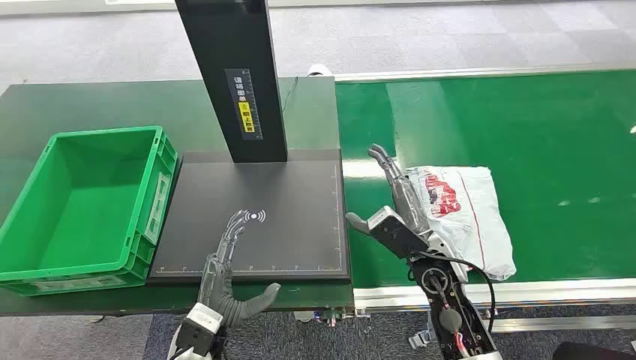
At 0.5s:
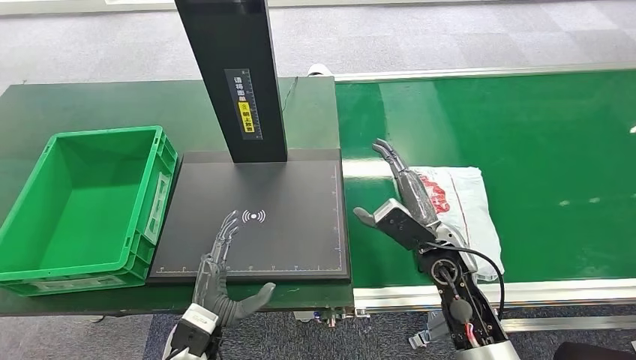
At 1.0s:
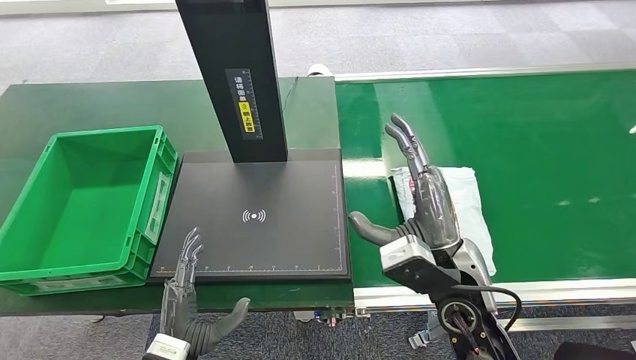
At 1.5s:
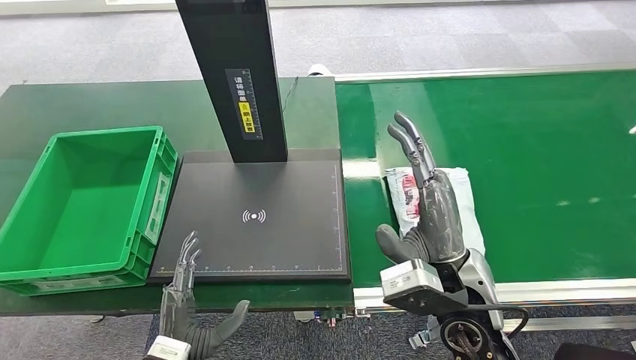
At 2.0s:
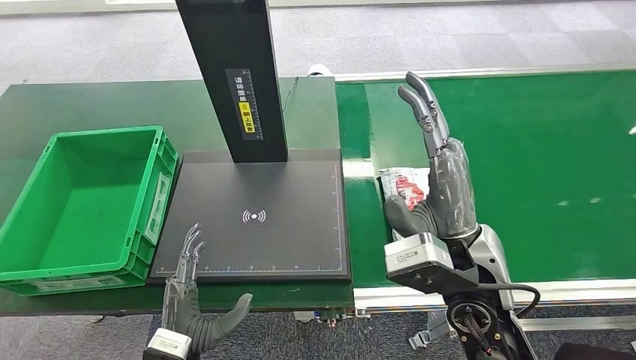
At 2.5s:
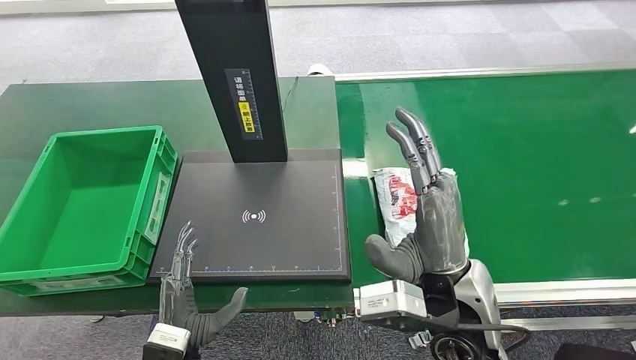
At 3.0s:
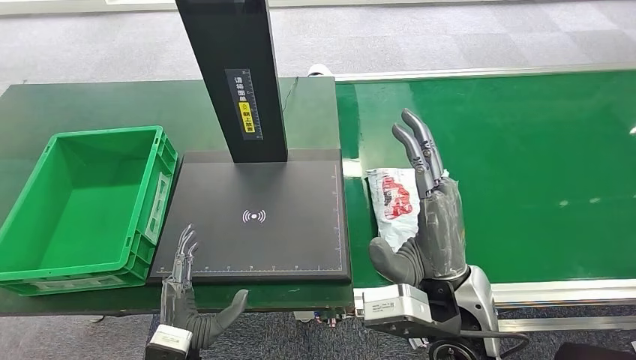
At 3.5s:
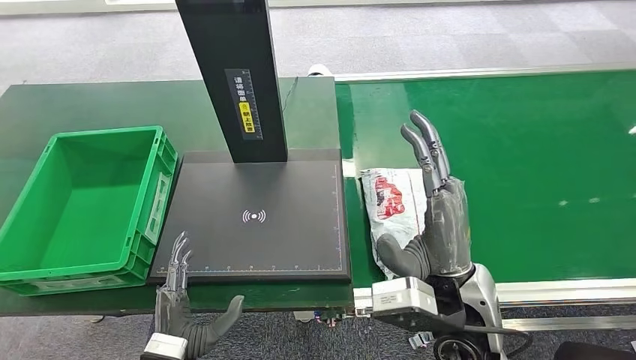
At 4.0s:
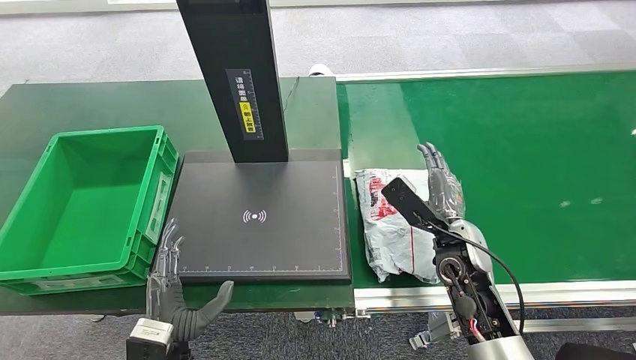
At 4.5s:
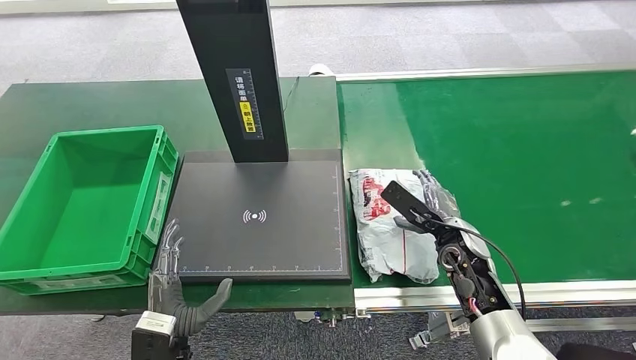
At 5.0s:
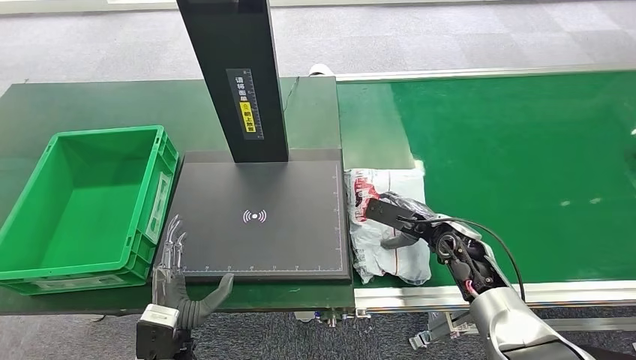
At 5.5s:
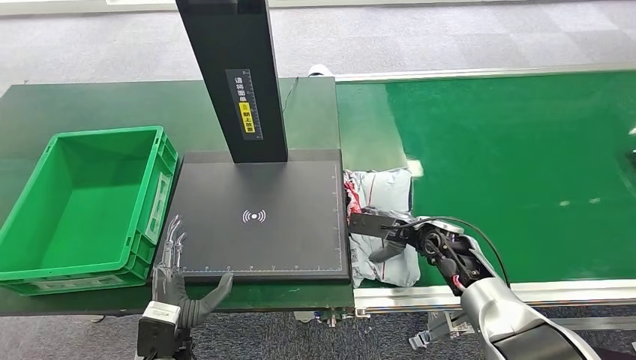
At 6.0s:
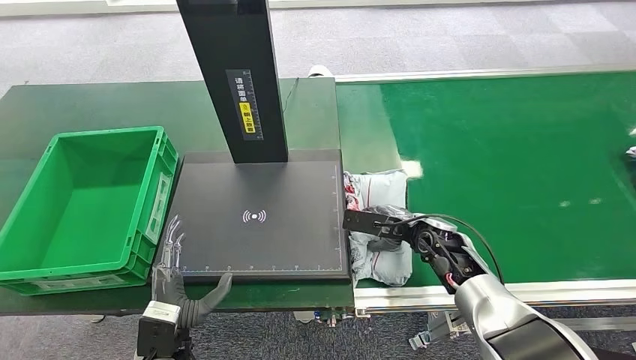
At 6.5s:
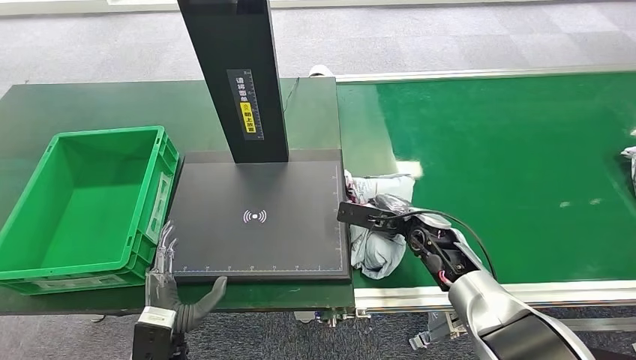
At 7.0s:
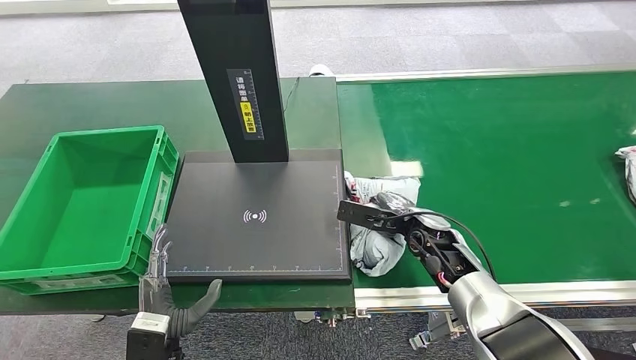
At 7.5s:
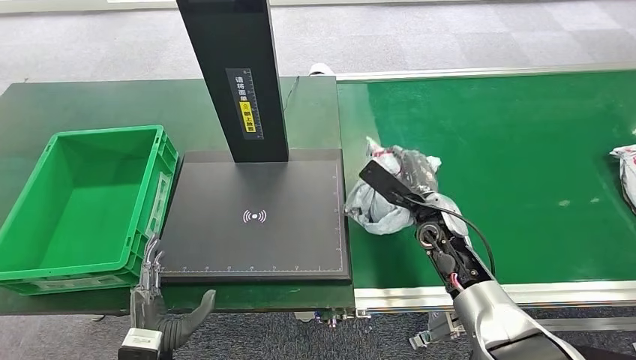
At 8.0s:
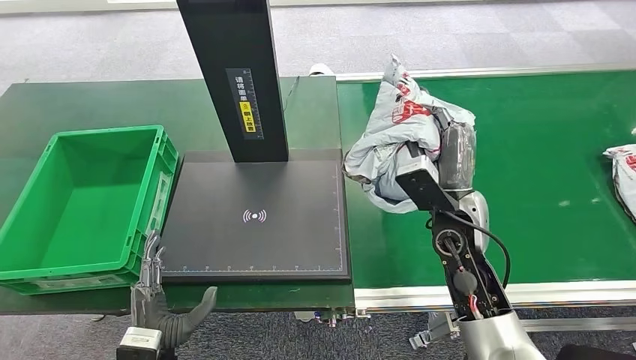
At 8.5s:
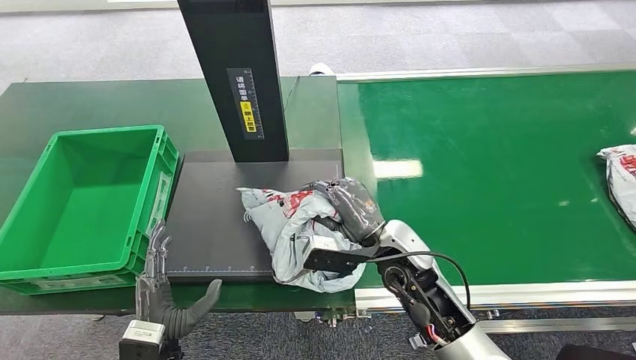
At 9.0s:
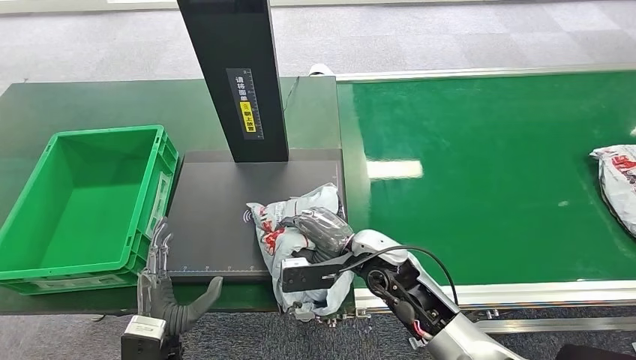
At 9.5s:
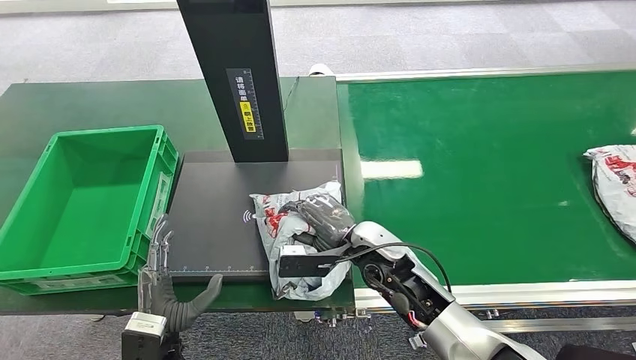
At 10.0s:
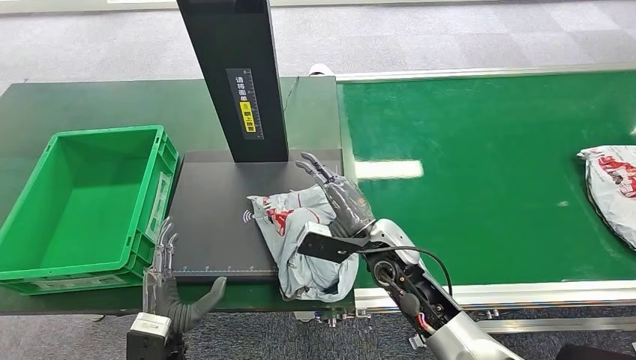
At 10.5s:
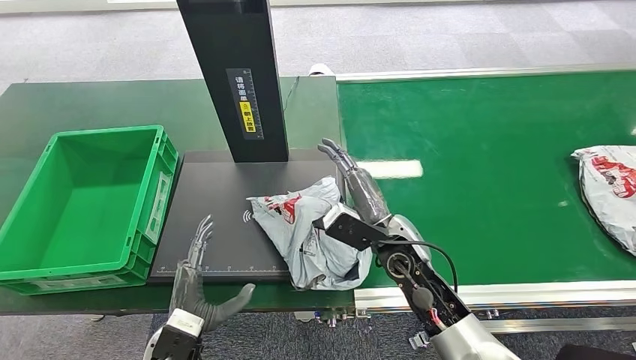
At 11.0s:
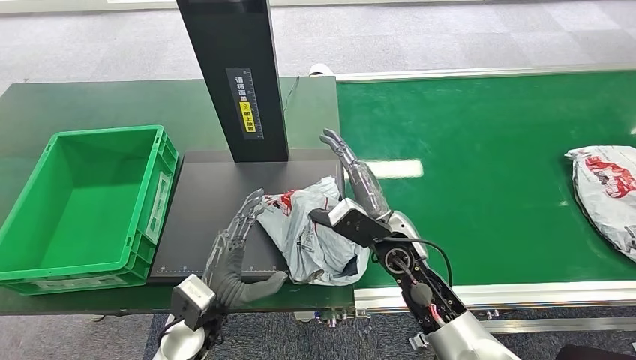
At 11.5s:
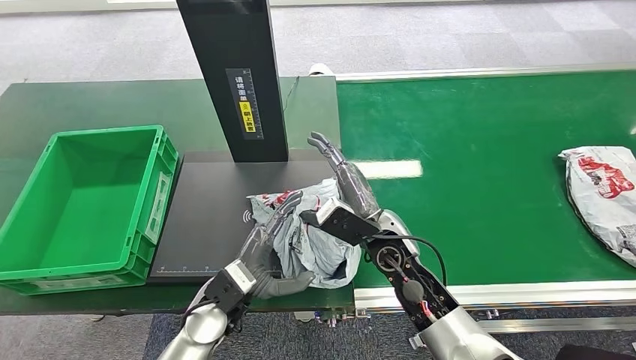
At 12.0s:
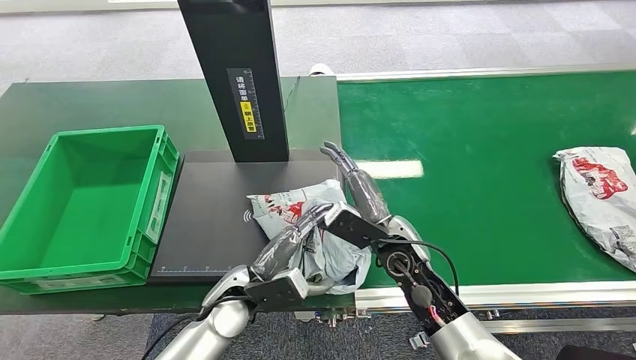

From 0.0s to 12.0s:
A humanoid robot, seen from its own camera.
Step, from 0.0s to 8.0s: Pick up the package from the conveyor belt.
Step, from 9.0s to 10.5s: Place the package onto the inbound machine.
From 2.0s to 4.0s: The right hand is displaced downward, to the right and forward by about 20 cm.
From 4.0s to 6.0s: The right hand moves roughly 5 cm.
From 6.0s to 8.0s: The right hand shifts some 10 cm upward.
From 10.0s to 12.0s: The left hand heads forward and to the right, covering some 15 cm.

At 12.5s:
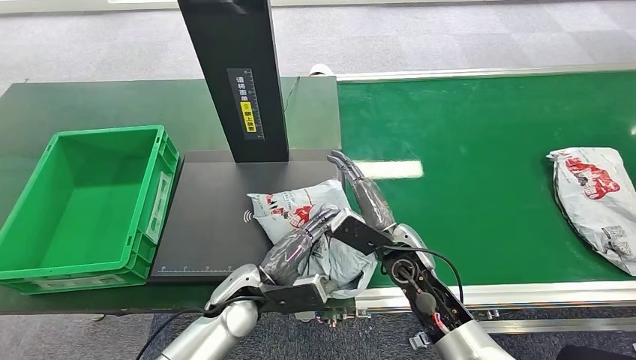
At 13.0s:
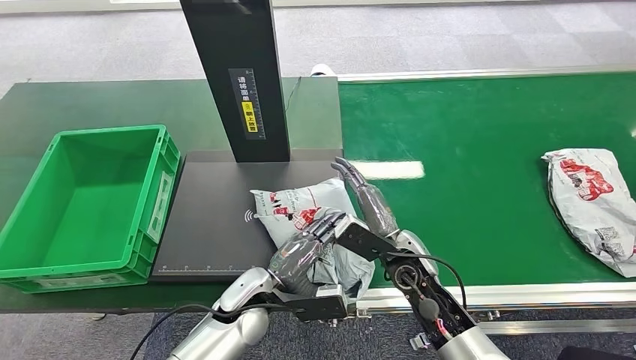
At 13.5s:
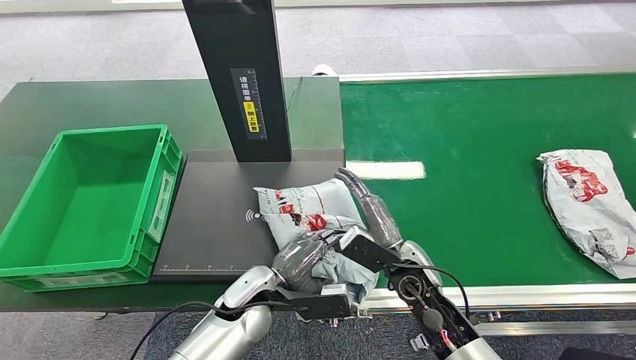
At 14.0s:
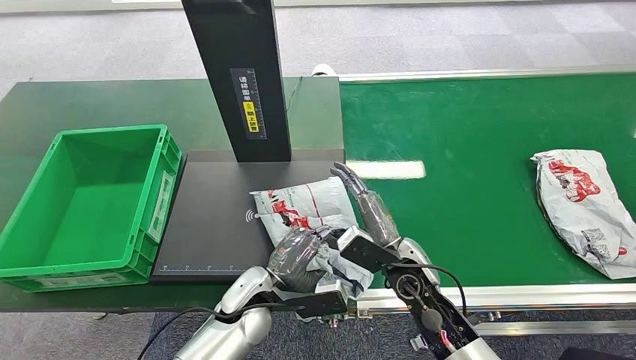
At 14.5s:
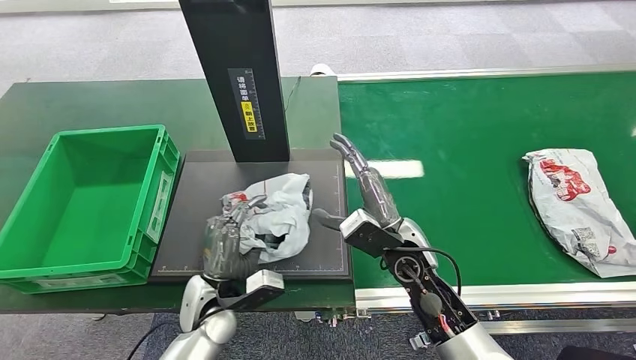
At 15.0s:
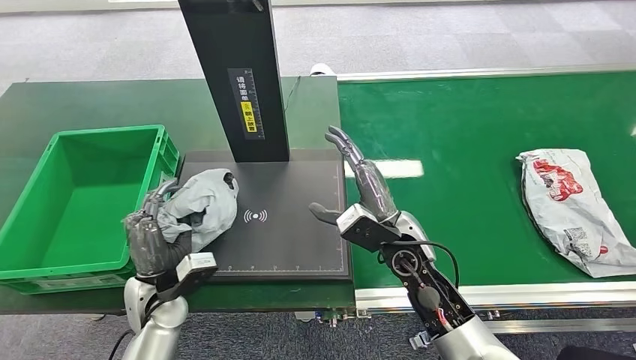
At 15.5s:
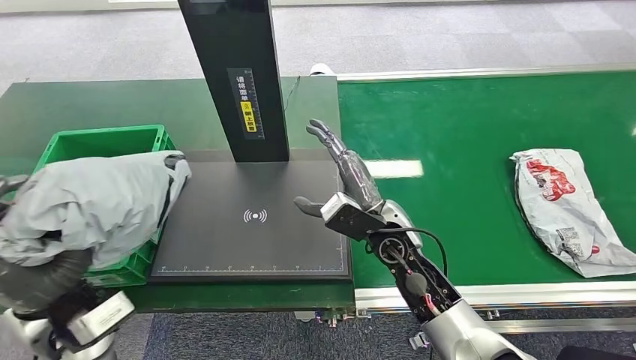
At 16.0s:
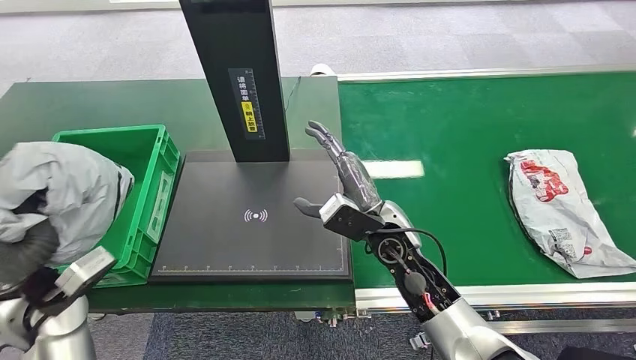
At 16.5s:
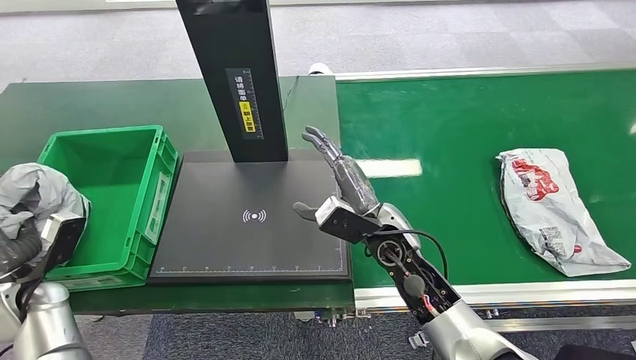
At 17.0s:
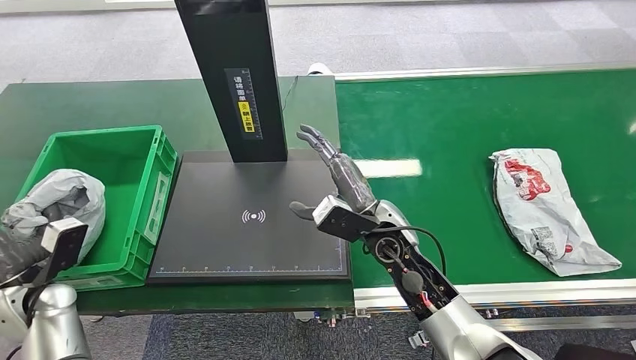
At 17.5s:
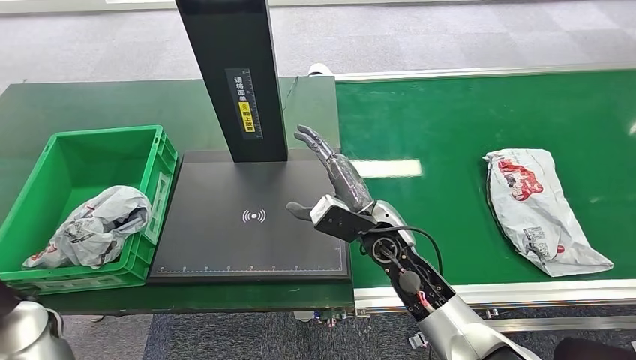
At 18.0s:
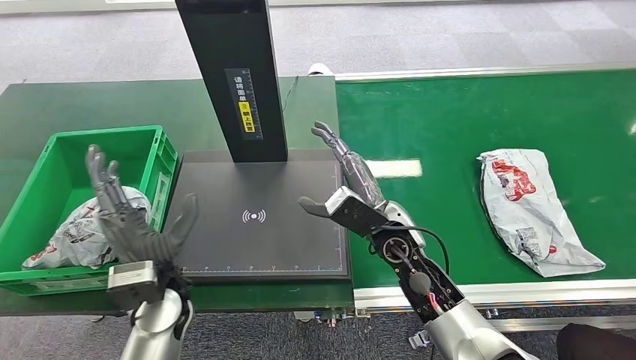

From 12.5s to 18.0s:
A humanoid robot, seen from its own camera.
Step, from 12.5s to 15.5s: Pick up the package from the inbound machine.
Step, from 16.0s to 18.0s: Place the package into the parcel locker.
